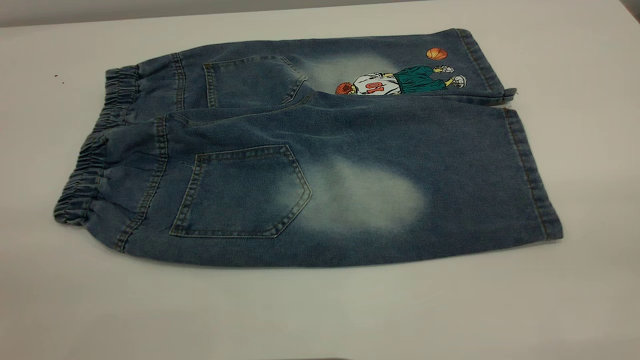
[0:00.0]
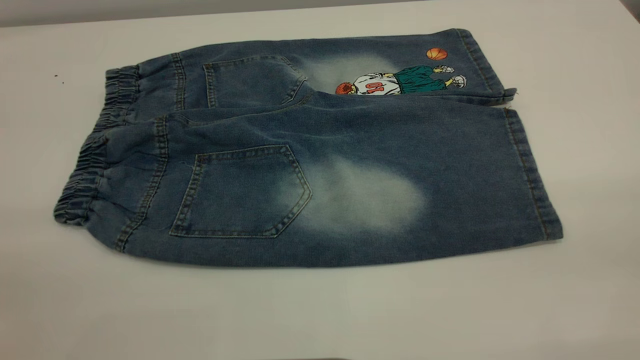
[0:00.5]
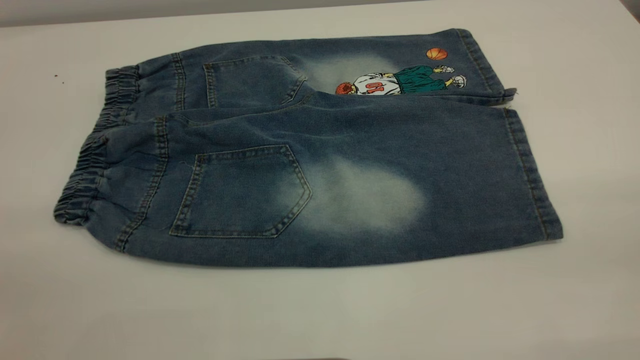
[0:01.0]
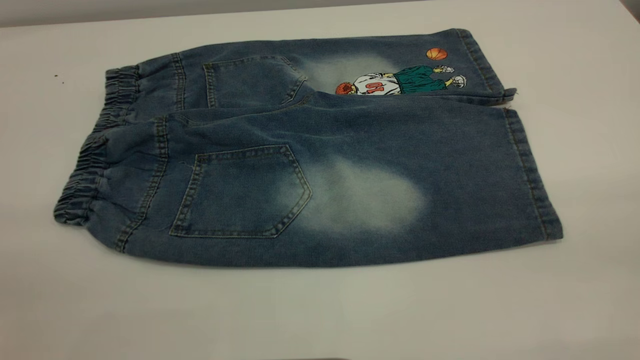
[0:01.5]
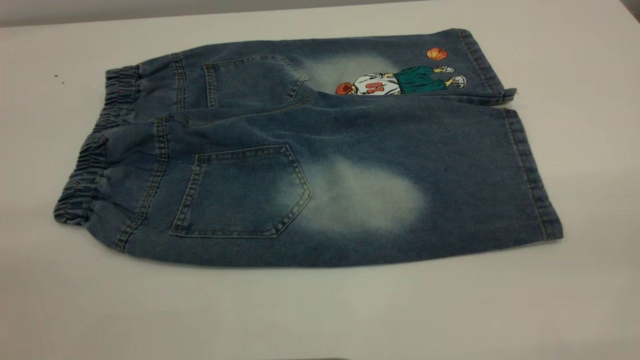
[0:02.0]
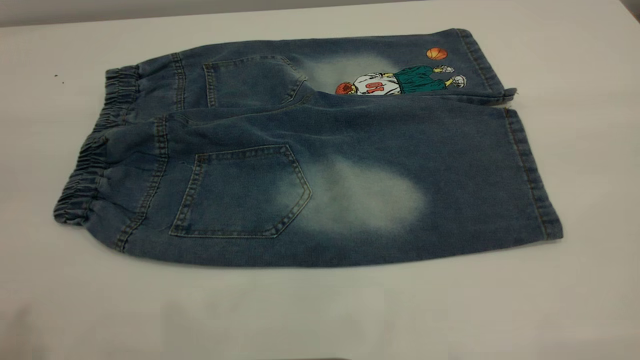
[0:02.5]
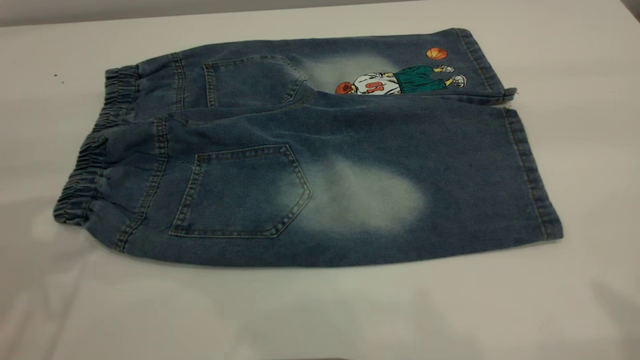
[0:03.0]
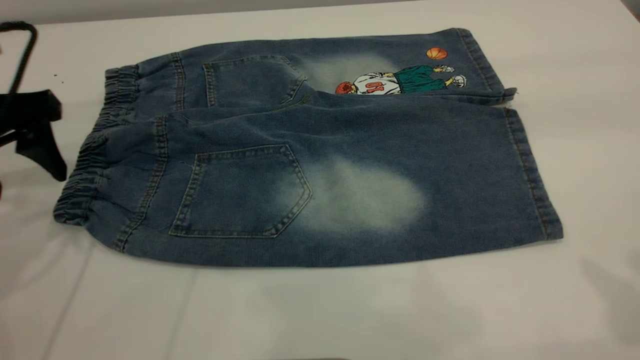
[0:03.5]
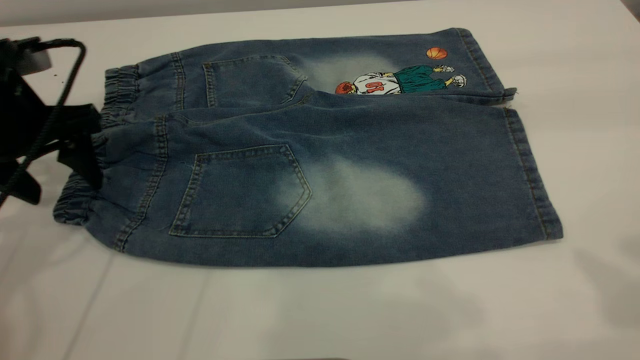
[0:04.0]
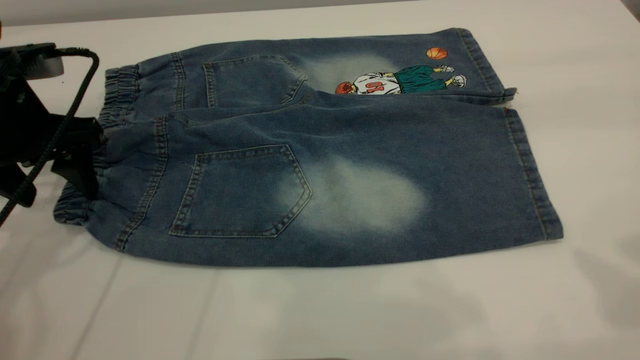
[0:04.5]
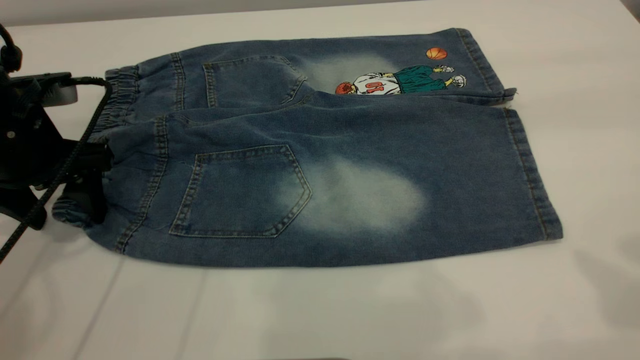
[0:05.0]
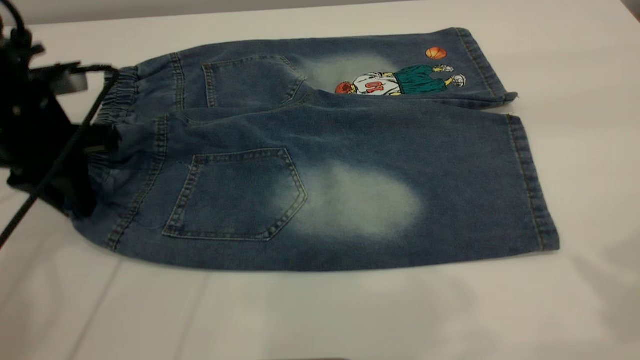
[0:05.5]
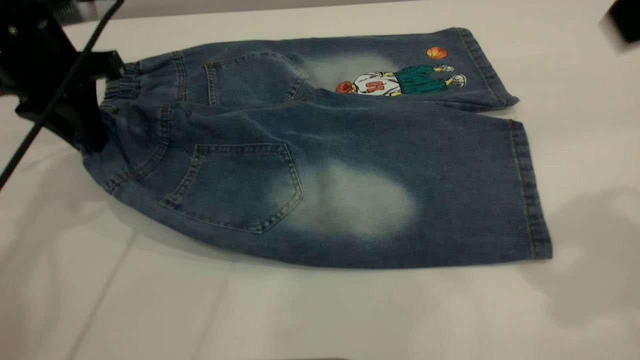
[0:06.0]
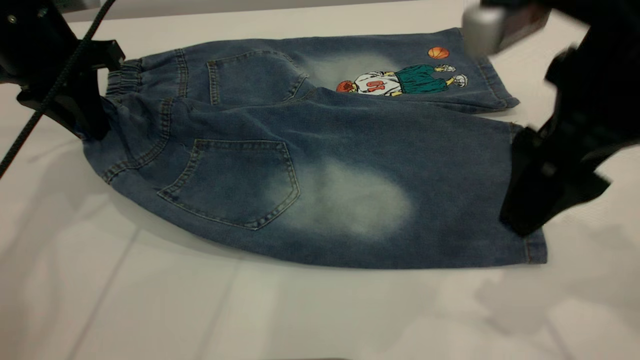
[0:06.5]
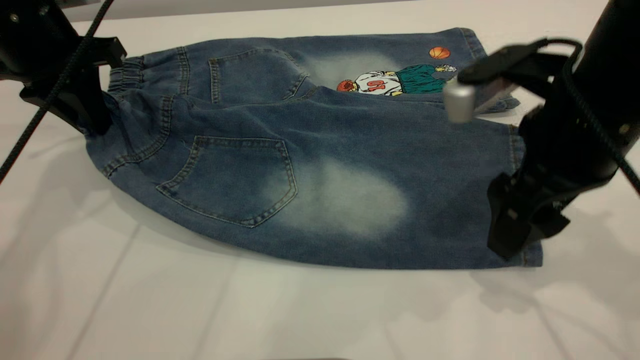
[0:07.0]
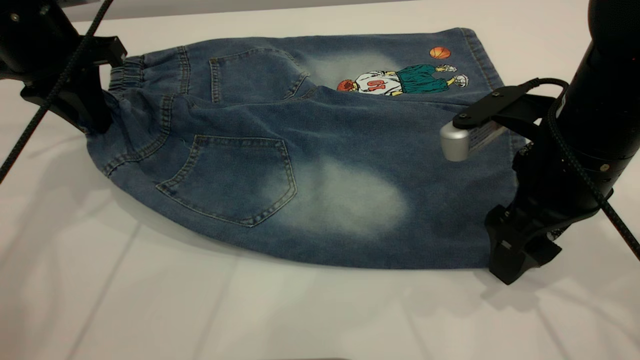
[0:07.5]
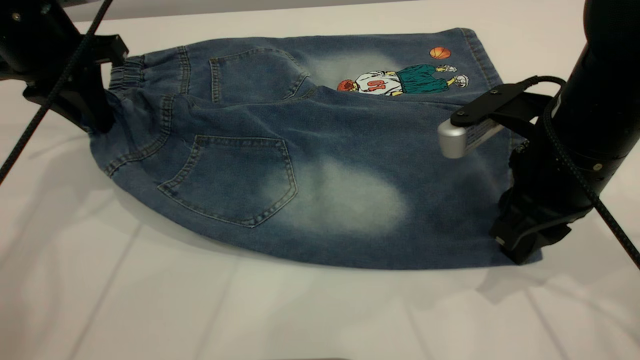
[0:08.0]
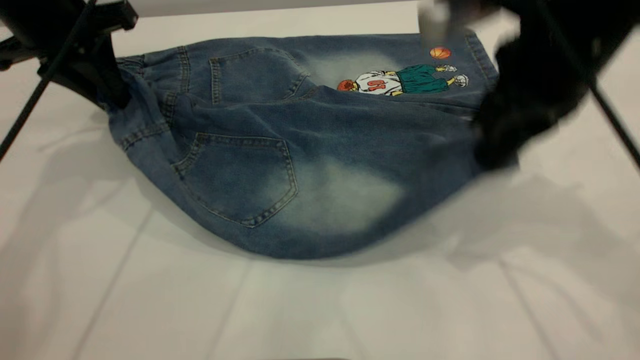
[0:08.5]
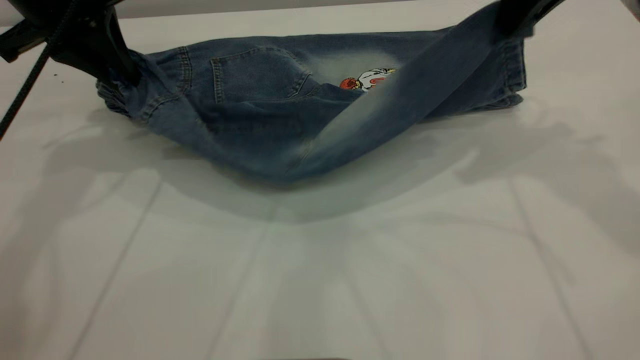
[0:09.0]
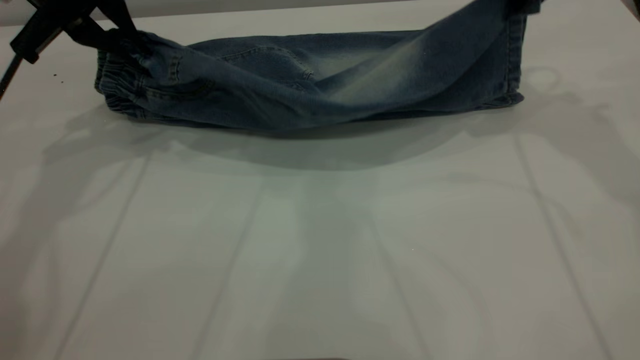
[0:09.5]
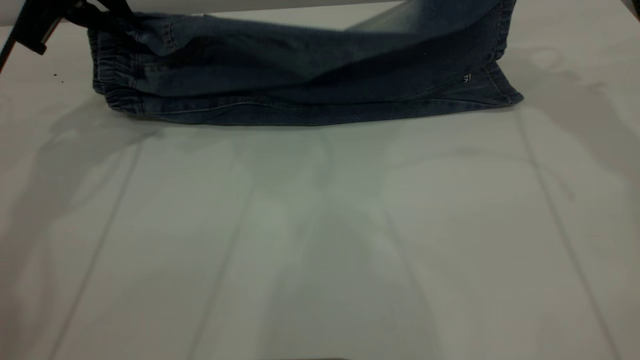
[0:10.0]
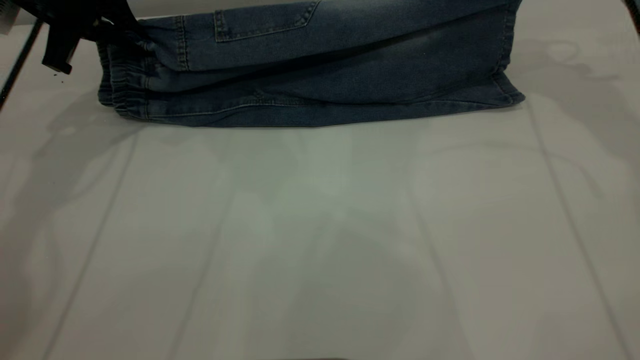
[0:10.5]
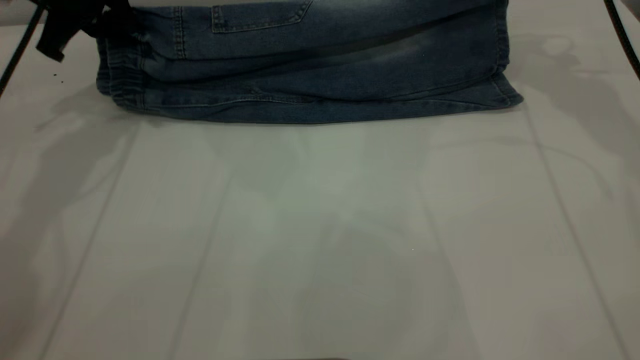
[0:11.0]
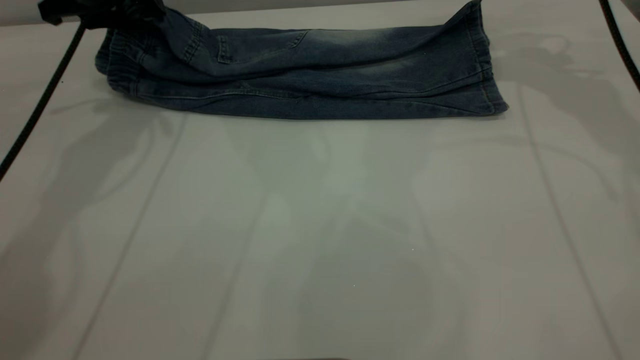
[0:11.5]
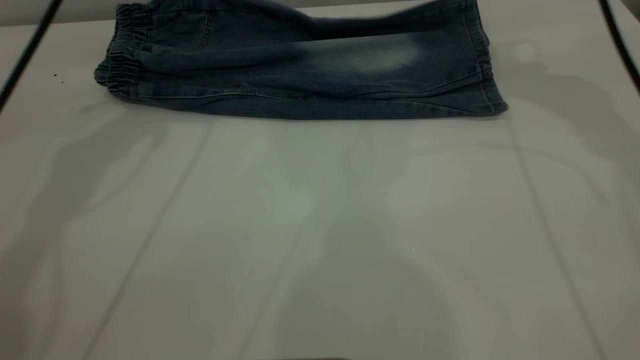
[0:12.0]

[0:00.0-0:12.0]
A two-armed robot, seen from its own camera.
0:02.0 to 0:04.0: The left gripper travels forward and downward by about 40 cm.
0:04.0 to 0:06.0: The left gripper goes some 5 cm forward, and closes up; the right gripper heads downward, covering some 5 cm.
0:06.0 to 0:08.0: The right gripper moves downward, approximately 20 cm, and closes its fingers.
0:08.0 to 0:10.0: The right gripper goes some 25 cm forward and upward, while the left gripper changes place by roughly 5 cm.
0:10.0 to 0:12.0: The right gripper opens its fingers. The left gripper opens its fingers.

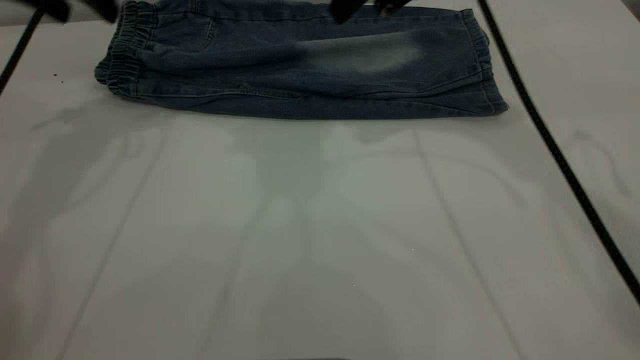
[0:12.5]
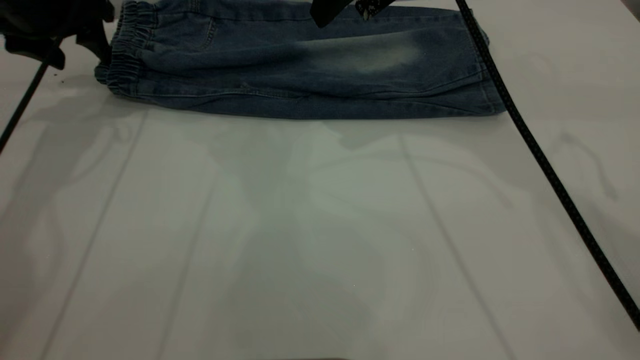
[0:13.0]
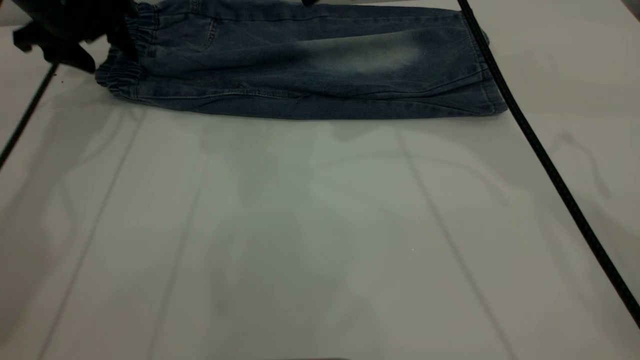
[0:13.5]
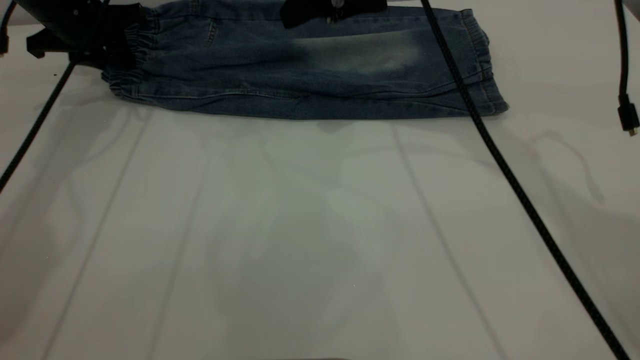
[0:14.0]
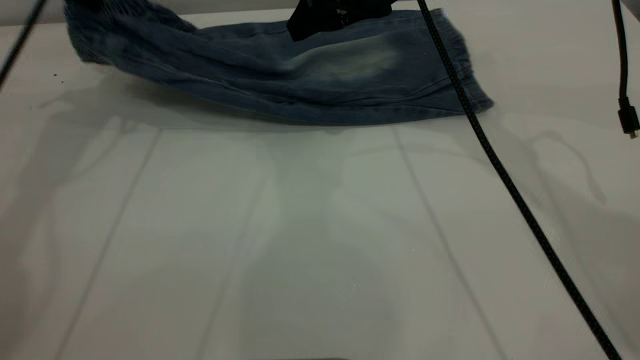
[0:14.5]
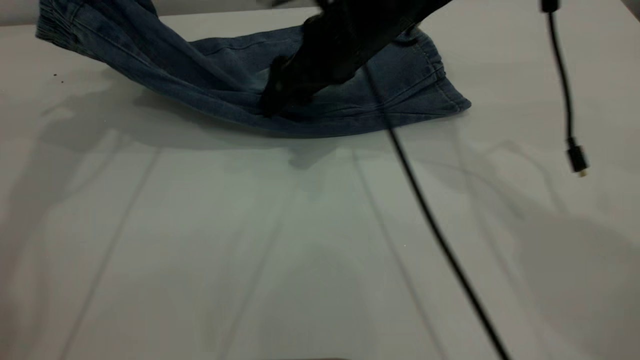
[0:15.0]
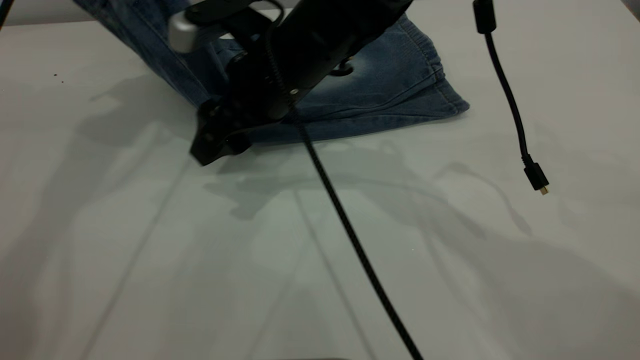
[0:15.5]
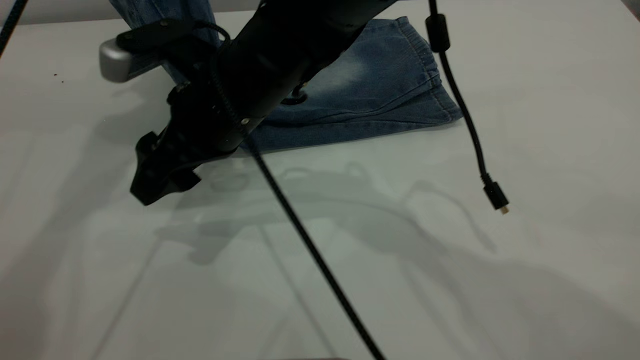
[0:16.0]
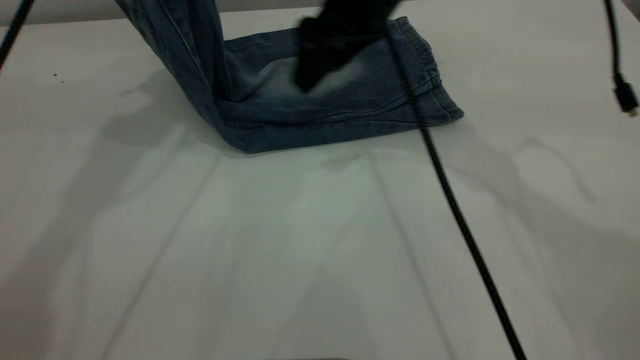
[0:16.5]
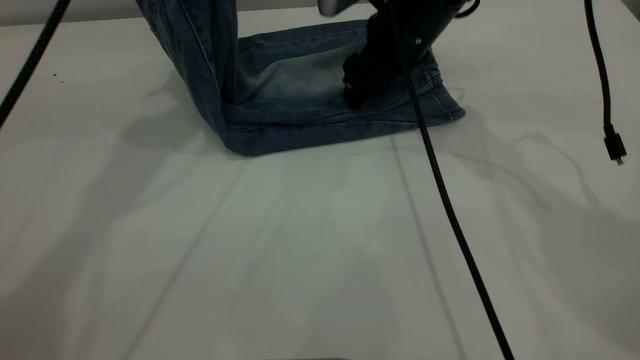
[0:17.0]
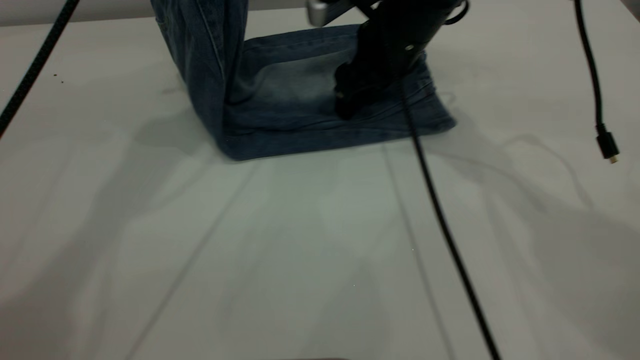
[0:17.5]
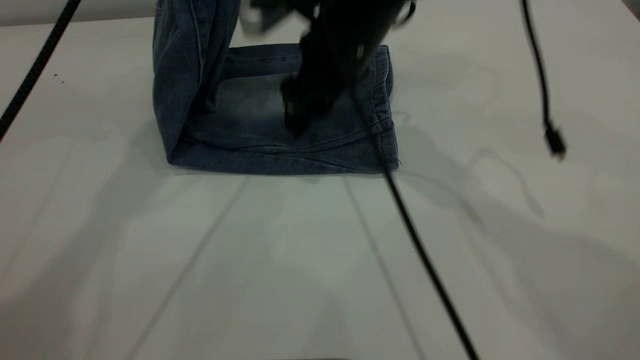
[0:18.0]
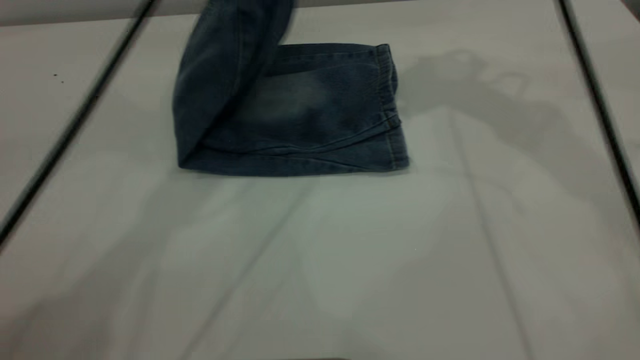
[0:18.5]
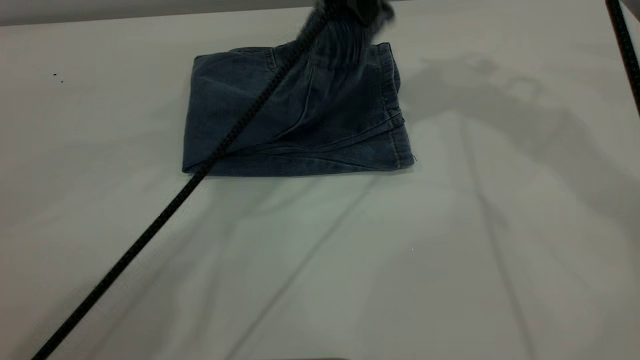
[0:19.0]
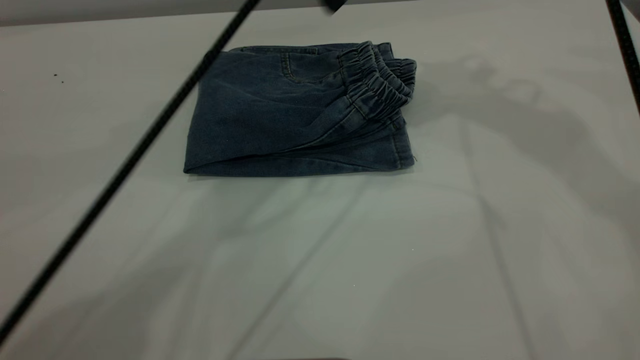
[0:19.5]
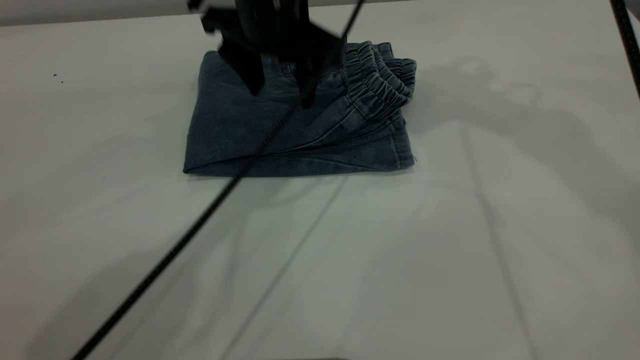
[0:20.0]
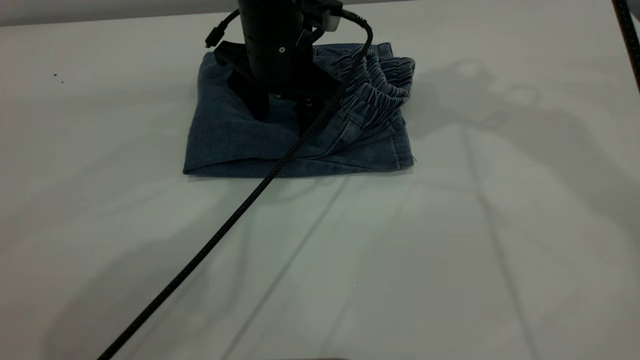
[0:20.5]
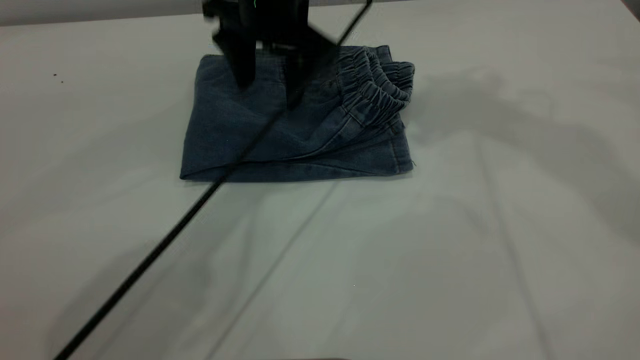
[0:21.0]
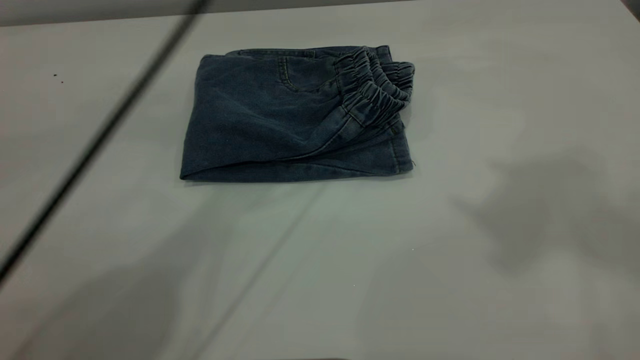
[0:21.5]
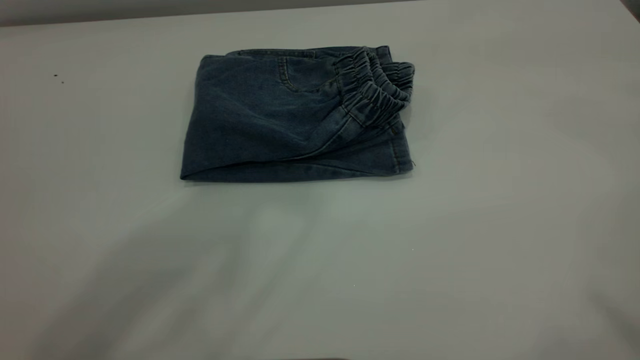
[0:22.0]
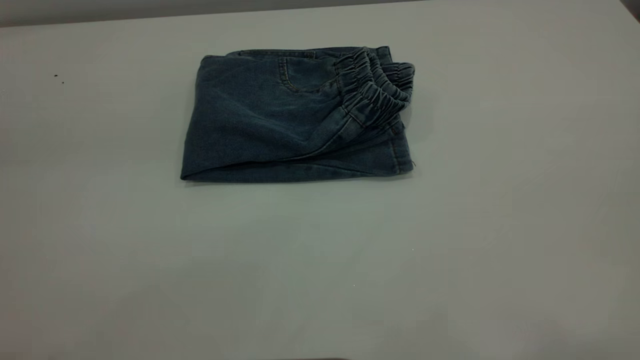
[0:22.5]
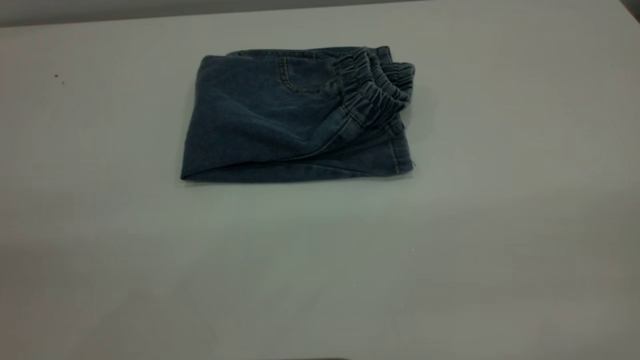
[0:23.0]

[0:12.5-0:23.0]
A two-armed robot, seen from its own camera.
Step, 0:13.0 to 0:19.0: Fold the pants from left to right.
0:12.5 to 0:14.5: The right gripper moves downward, roughly 5 cm, while the left gripper travels downward and back again, about 10 cm each way, and closes its fingers.
0:14.5 to 0:16.5: The left gripper heads to the right and upward, covering about 10 cm; the right gripper moves about 15 cm to the left and comes back.
0:16.5 to 0:19.0: The right gripper shifts some 20 cm upward and to the right. The left gripper heads to the right and downward, covering approximately 20 cm.
0:19.0 to 0:21.0: The left gripper moves up and down over roughly 15 cm, changing direction 2 times, and opens. Meanwhile the right gripper is displaced upward by roughly 5 cm.
0:21.0 to 0:23.0: The left gripper is displaced backward, to the left and upward by some 50 cm, while the right gripper travels backward by approximately 40 cm.
